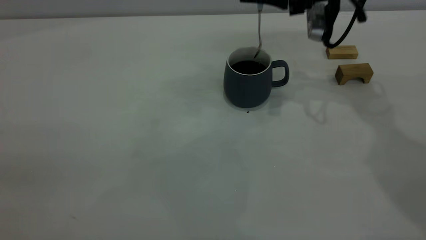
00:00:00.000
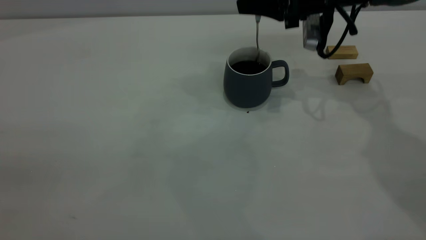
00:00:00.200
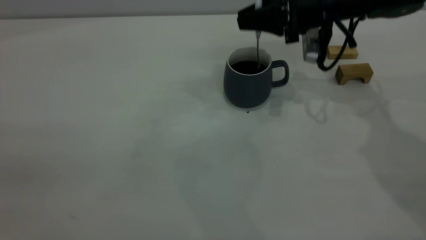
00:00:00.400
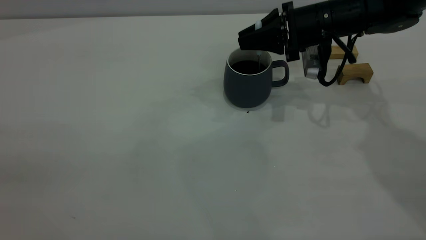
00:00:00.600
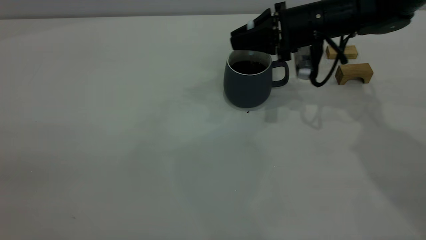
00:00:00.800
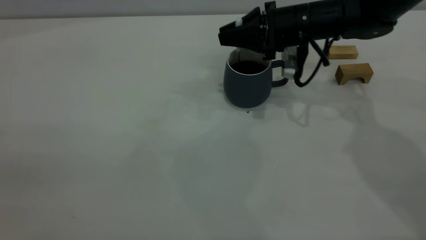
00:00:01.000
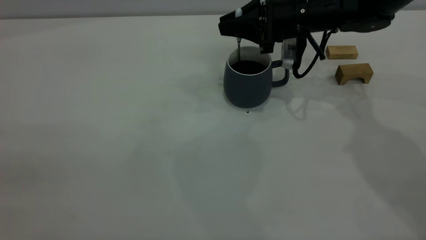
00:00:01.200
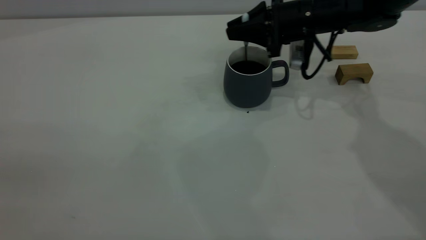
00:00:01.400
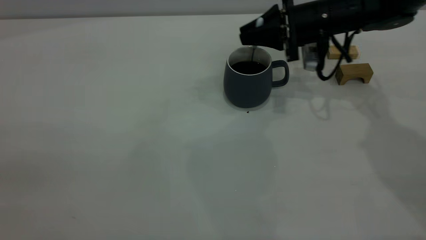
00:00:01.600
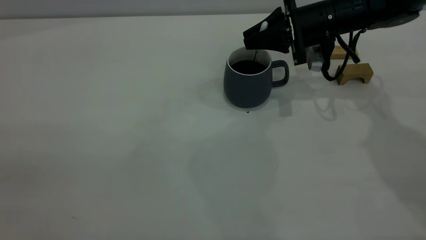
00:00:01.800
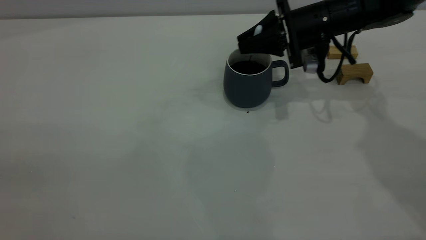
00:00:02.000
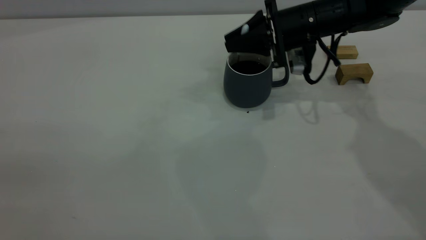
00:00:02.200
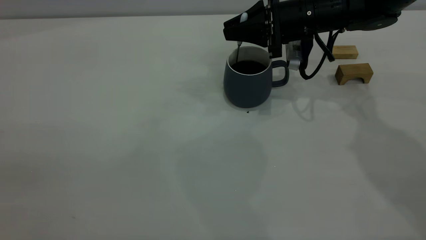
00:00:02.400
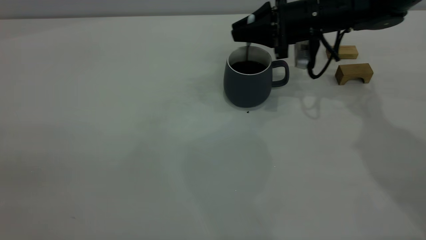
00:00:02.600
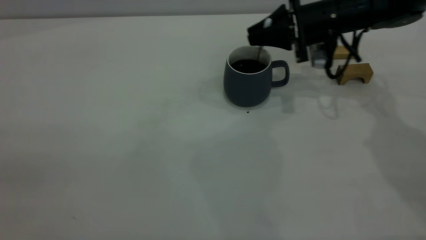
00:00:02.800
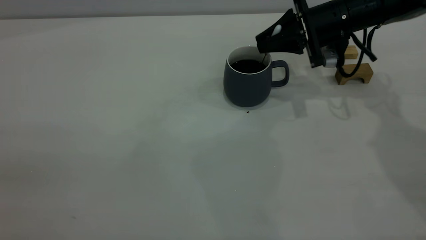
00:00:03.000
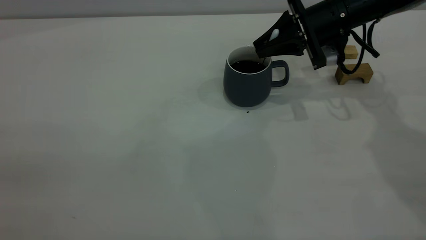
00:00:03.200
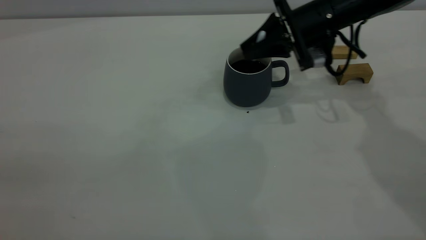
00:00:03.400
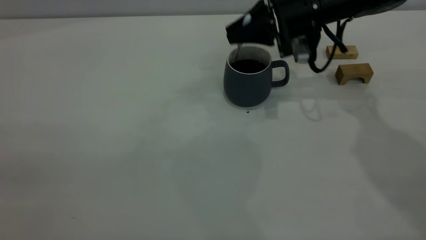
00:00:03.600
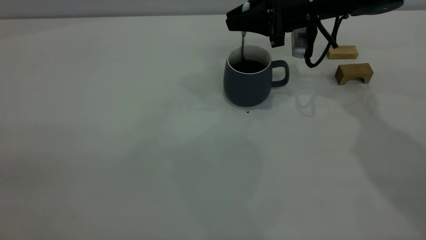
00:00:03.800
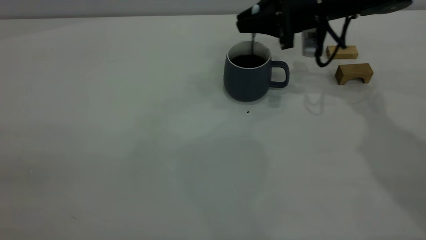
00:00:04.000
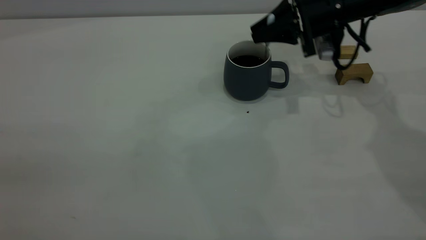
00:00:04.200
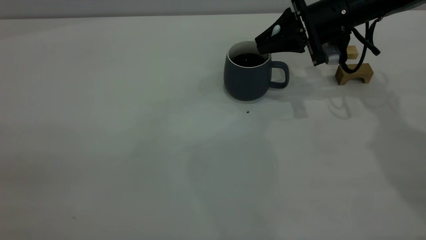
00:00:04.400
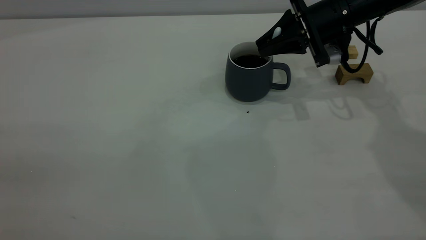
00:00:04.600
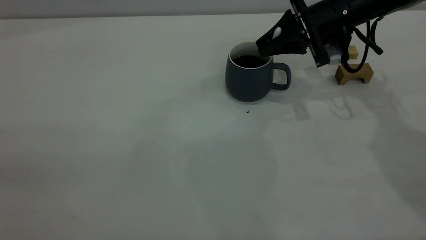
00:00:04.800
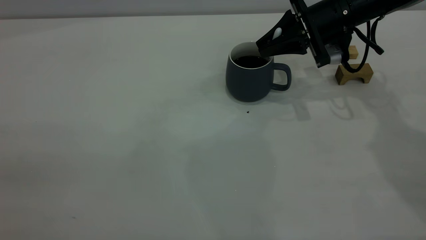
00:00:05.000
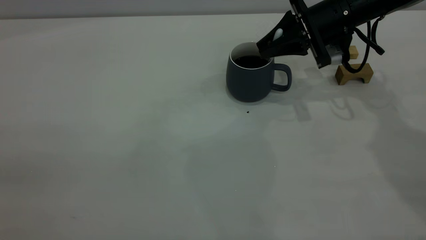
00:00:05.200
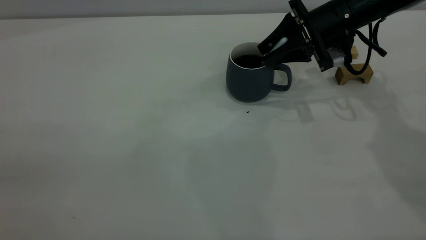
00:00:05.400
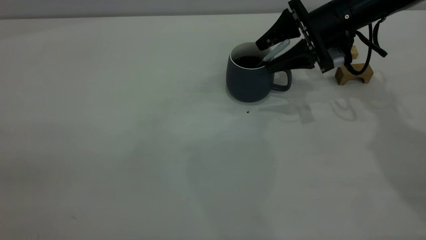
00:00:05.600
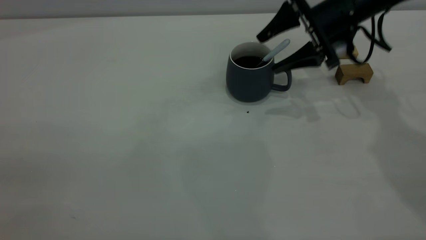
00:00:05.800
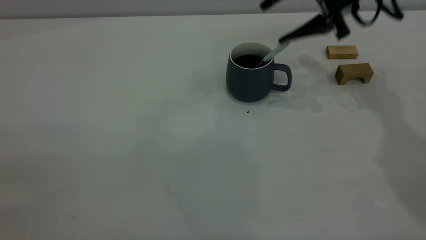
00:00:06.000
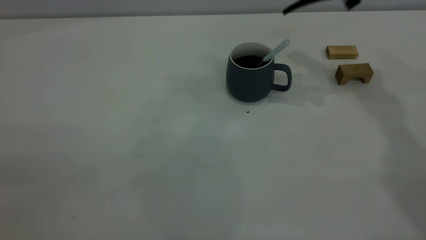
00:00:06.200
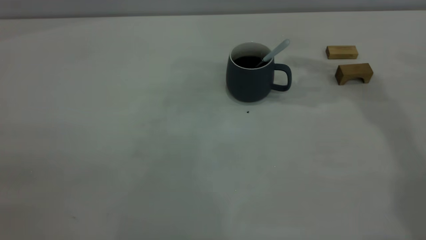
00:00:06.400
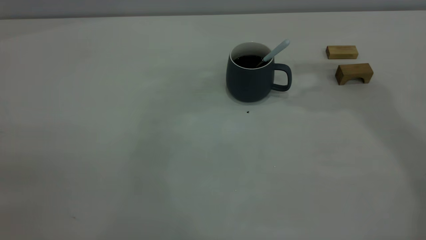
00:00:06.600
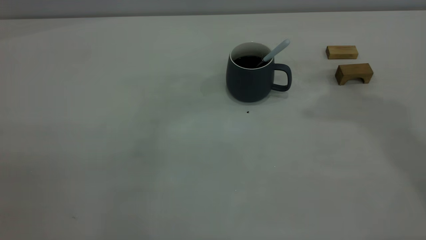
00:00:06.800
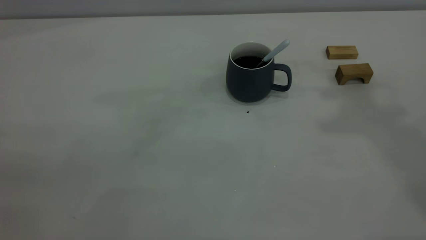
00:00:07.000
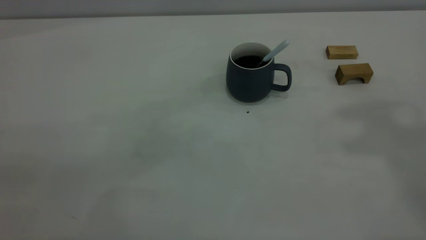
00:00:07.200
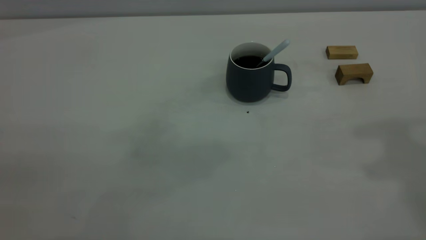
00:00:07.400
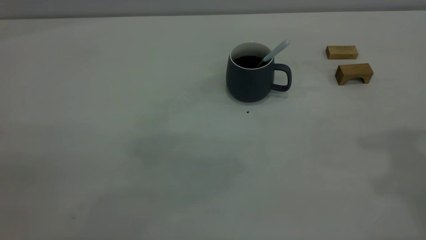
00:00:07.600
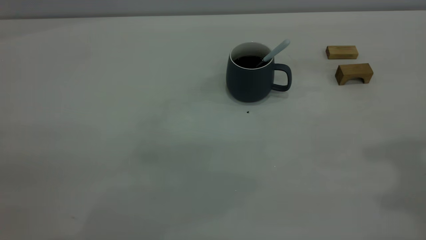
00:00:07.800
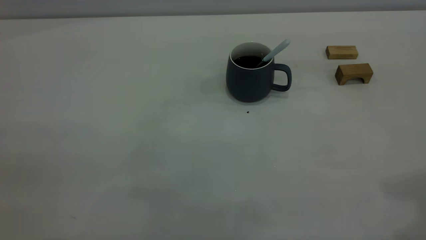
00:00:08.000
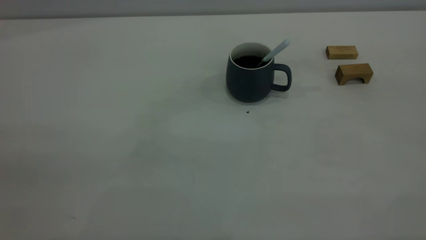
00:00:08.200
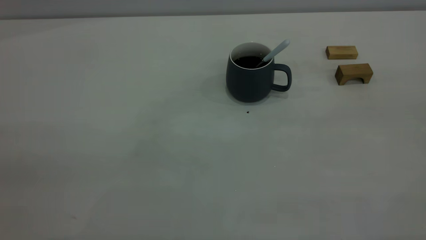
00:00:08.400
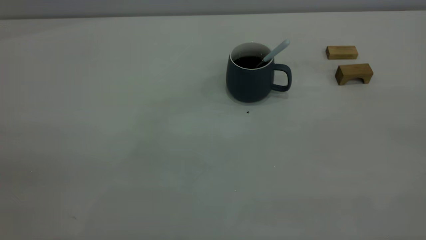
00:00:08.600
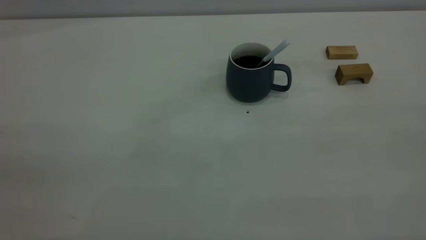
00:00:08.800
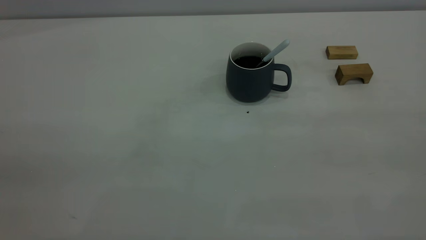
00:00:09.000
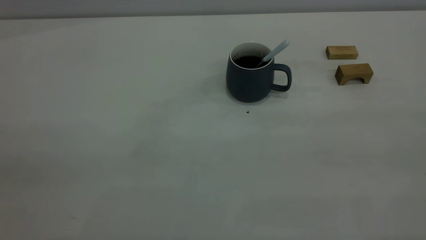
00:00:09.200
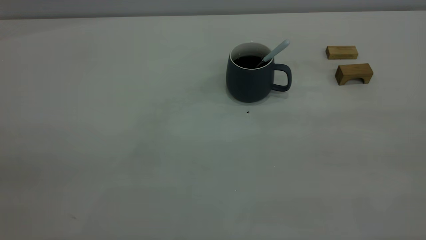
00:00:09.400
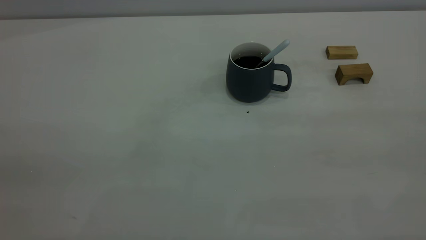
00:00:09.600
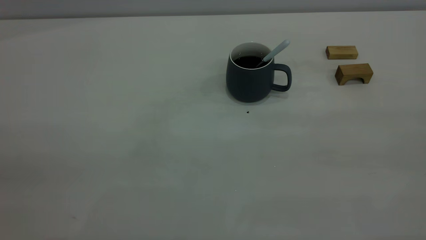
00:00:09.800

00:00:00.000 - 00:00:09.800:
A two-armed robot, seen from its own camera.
Step, 00:00:00.000 - 00:00:06.000: Stir the coffee in the cup.
00:00:00.000 - 00:00:01.400: The right gripper shifts some 5 cm downward.
00:00:01.400 - 00:00:02.800: The grippers make only small movements.
00:00:02.800 - 00:00:04.200: The grippers move only a little.
00:00:04.200 - 00:00:05.600: The right gripper opens its fingers.
00:00:05.600 - 00:00:07.000: The right gripper travels upward by about 40 cm, and closes its fingers.
